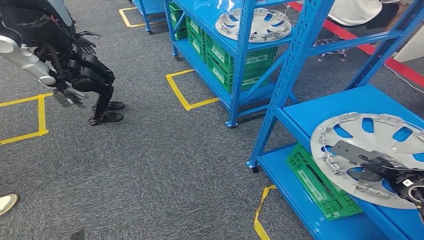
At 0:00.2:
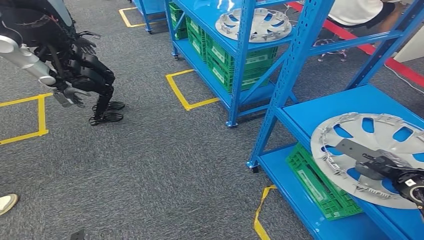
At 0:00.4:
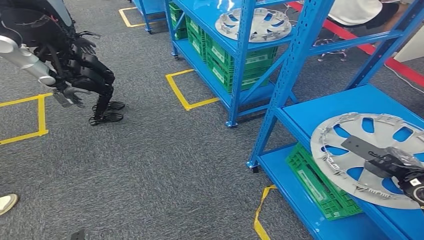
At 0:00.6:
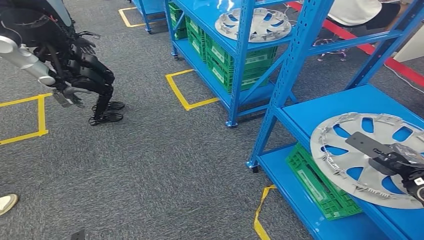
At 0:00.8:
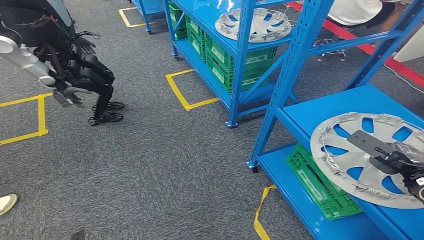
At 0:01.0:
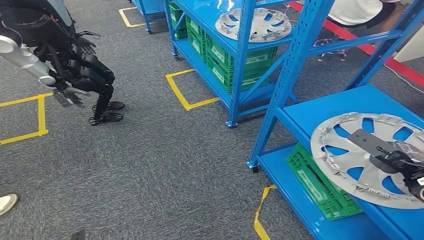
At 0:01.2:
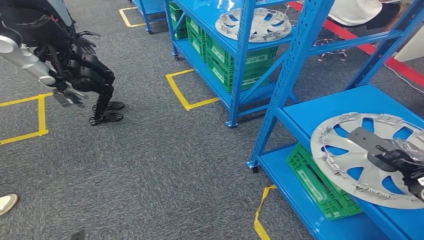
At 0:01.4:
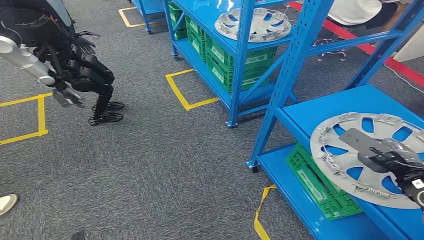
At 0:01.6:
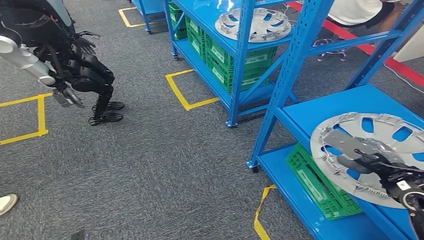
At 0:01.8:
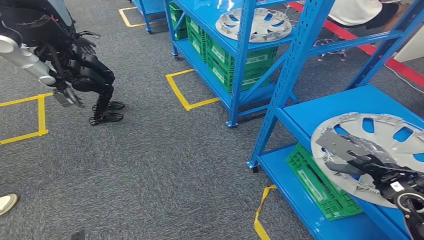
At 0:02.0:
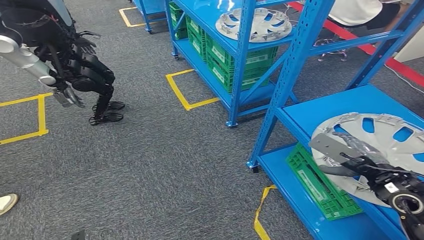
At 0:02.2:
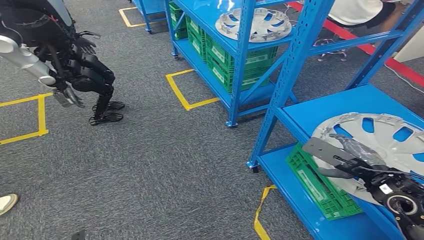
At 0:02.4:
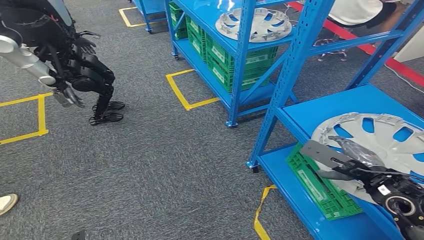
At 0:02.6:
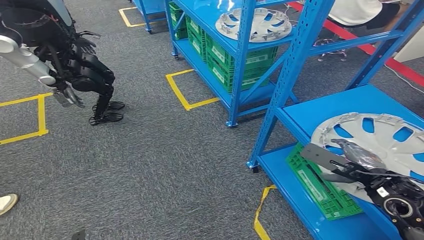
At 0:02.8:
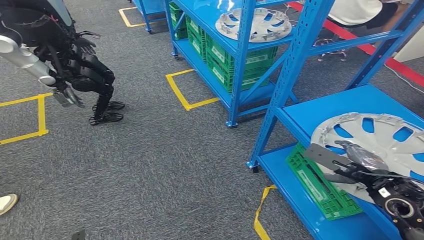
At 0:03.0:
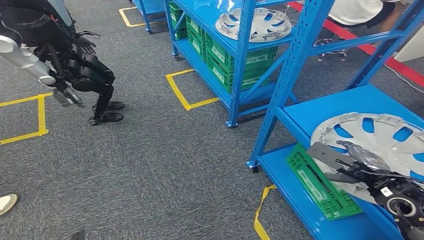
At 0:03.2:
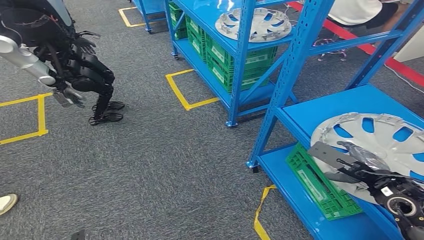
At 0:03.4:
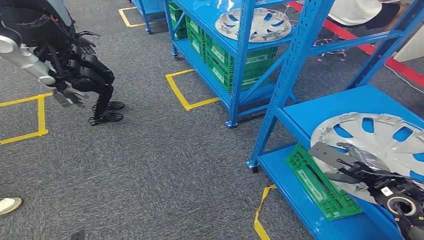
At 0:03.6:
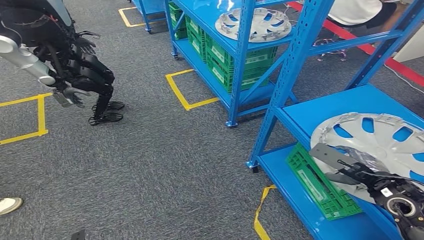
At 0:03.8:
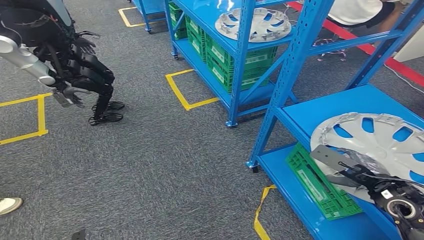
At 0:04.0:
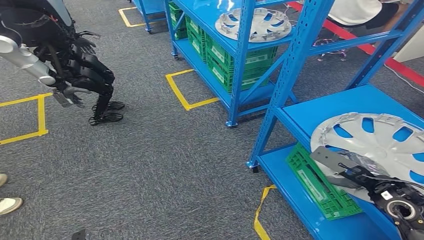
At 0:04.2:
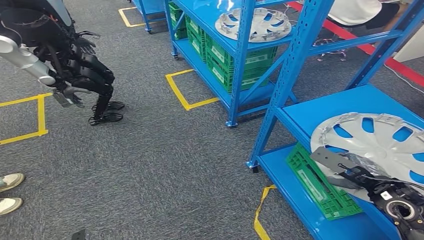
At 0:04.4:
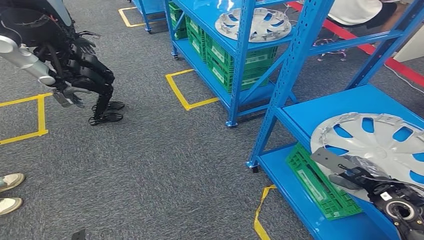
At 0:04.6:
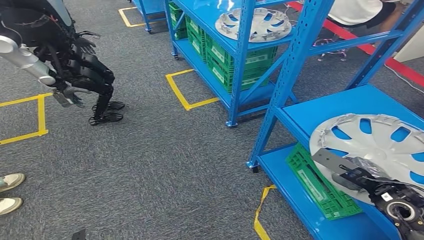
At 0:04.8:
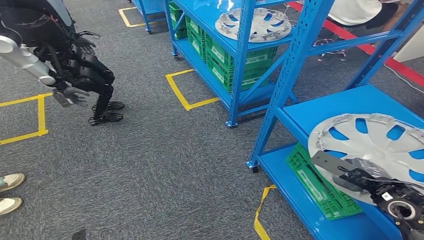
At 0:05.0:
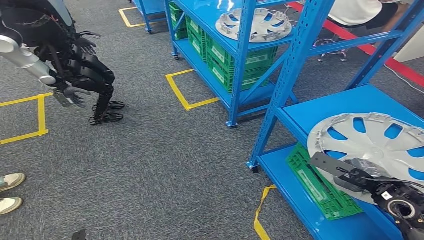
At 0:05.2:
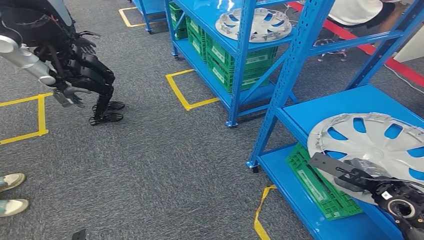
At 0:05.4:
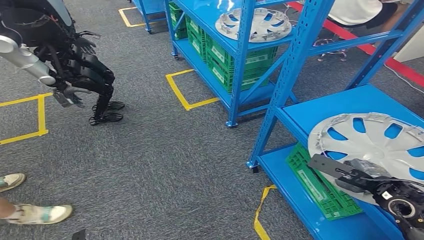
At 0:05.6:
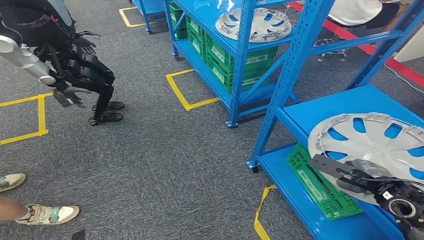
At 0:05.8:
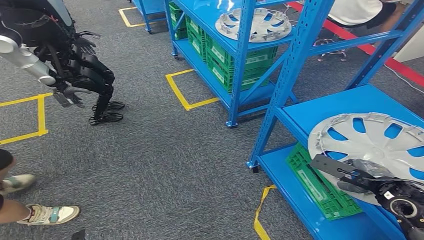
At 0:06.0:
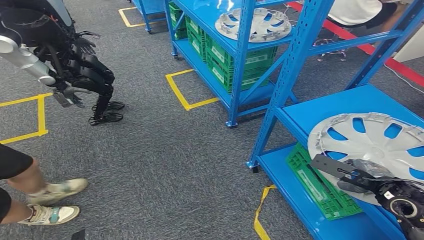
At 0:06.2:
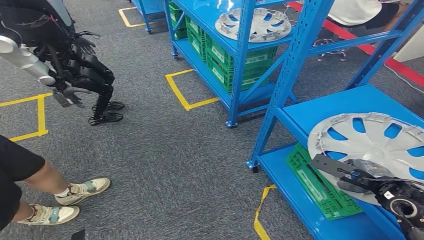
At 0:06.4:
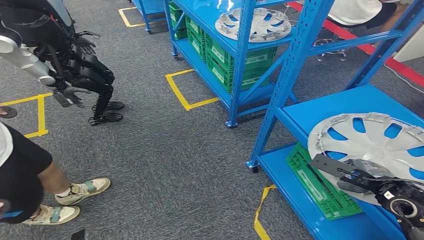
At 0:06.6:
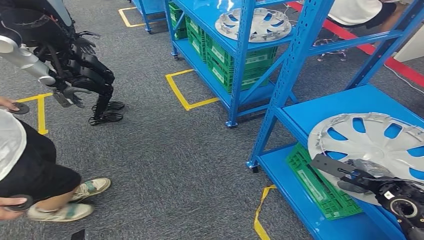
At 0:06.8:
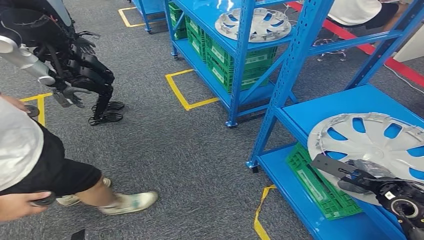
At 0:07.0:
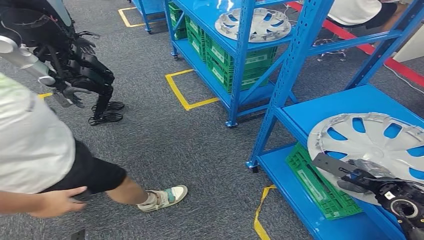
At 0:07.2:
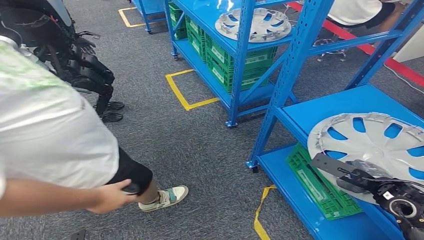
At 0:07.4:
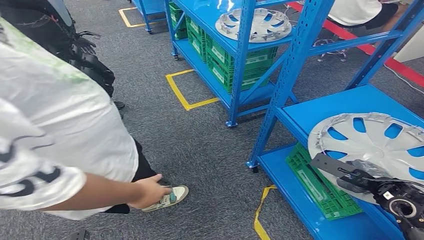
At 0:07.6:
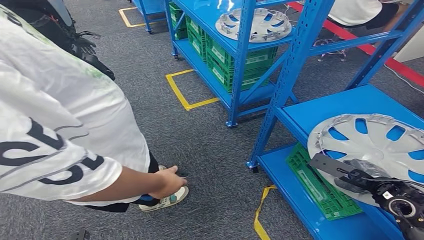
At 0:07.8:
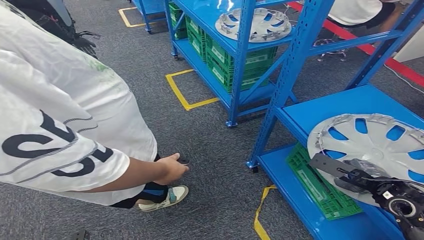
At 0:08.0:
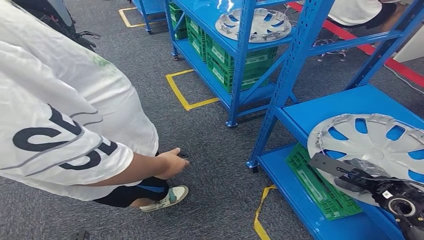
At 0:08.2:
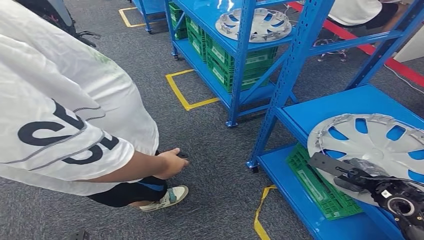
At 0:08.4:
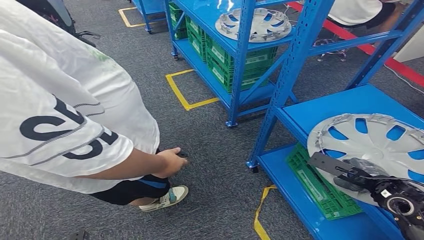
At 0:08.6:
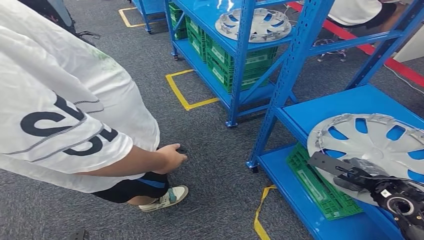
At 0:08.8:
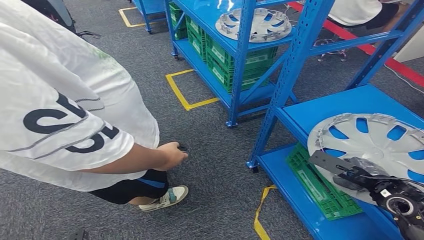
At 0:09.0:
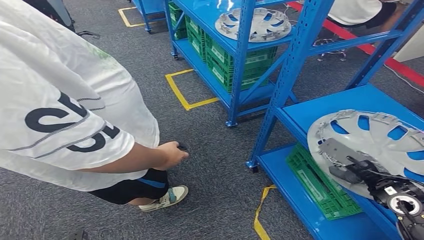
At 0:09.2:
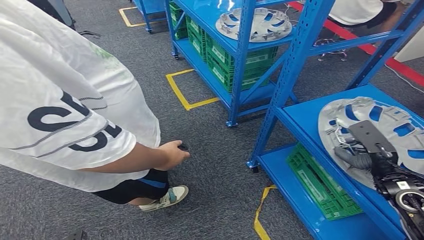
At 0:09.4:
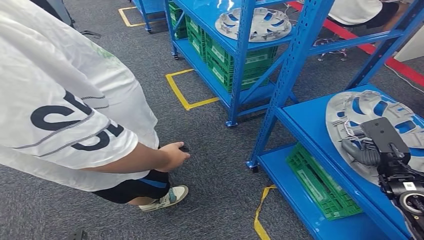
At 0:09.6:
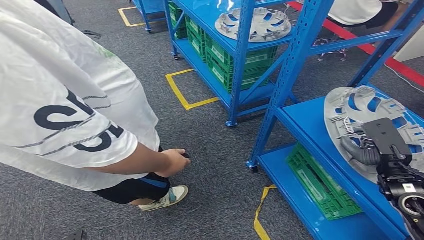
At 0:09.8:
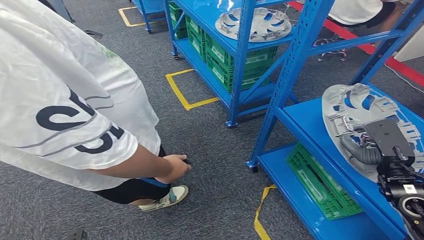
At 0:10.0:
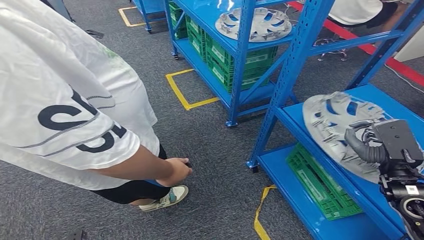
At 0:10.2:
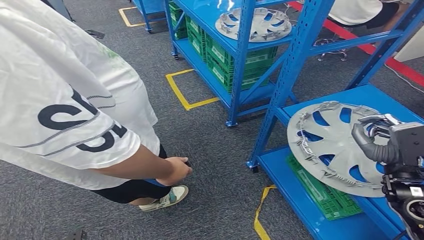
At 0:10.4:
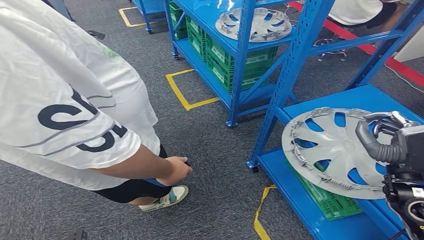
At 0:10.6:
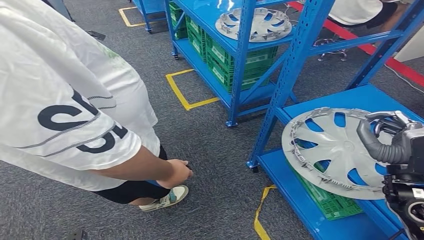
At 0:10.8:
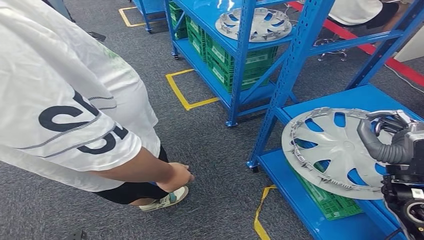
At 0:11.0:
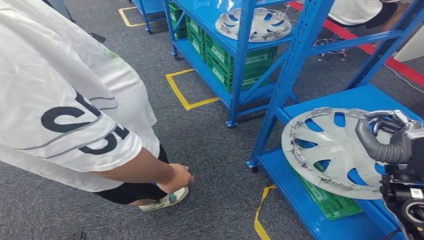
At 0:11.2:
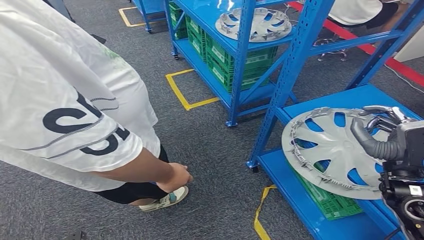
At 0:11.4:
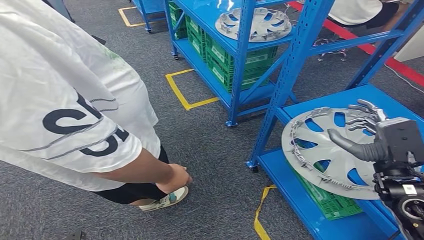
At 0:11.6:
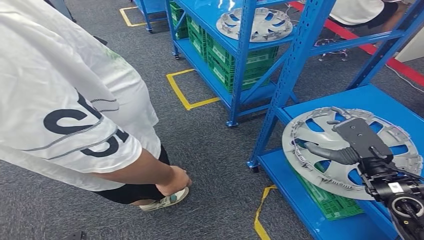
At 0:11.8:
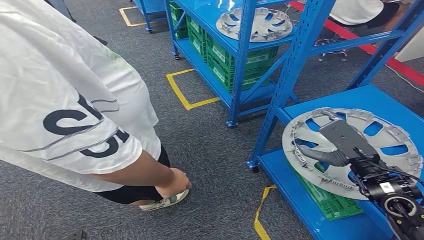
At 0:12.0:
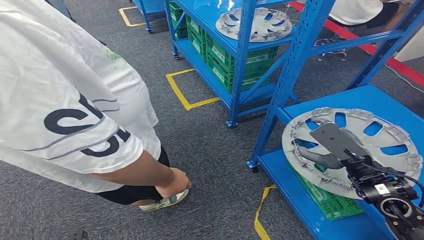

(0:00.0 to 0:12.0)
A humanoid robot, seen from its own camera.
0:00.0 - 0:01.6: The right hand changes place by roughly 5 cm.
0:01.6 - 0:04.4: The hands make only small movements.
0:04.4 - 0:06.0: The hands move only a little.

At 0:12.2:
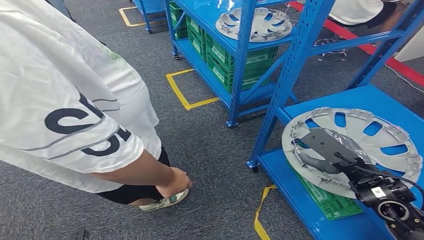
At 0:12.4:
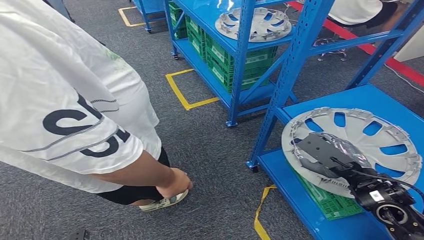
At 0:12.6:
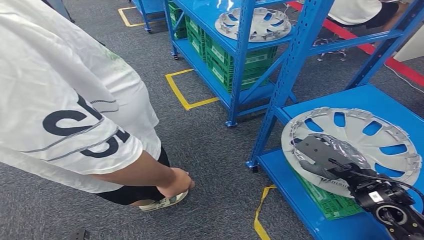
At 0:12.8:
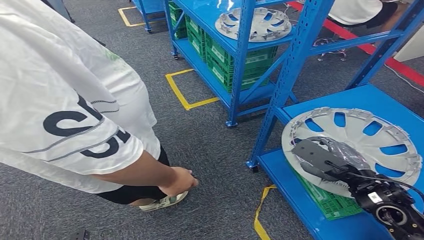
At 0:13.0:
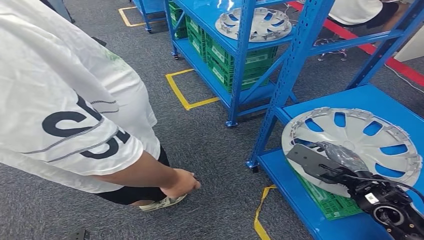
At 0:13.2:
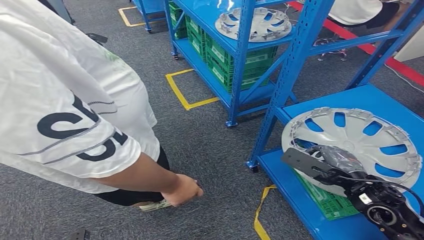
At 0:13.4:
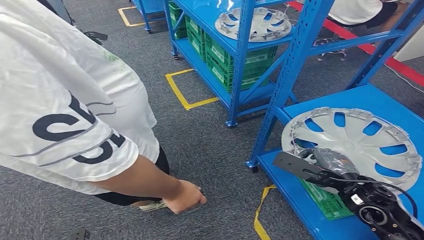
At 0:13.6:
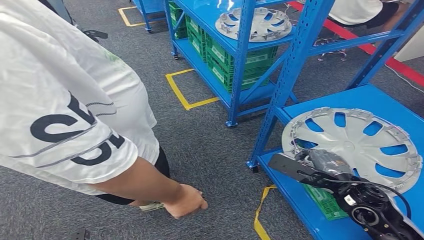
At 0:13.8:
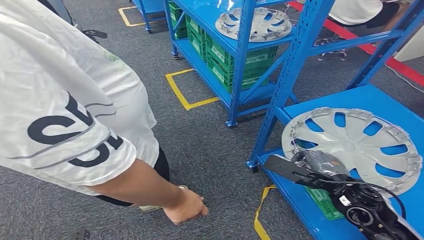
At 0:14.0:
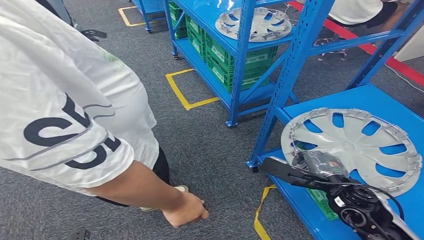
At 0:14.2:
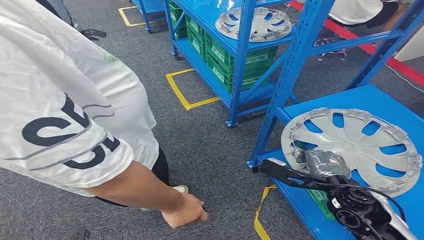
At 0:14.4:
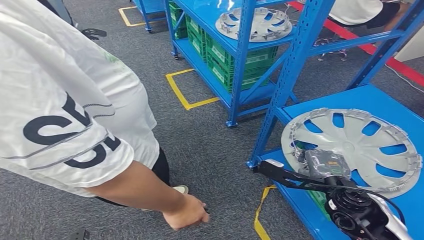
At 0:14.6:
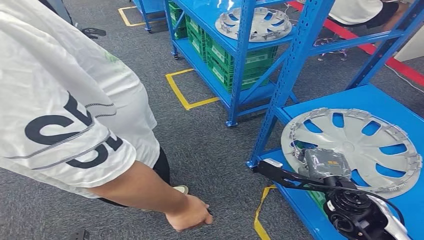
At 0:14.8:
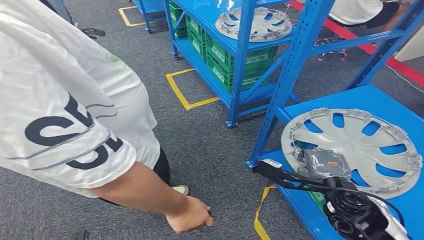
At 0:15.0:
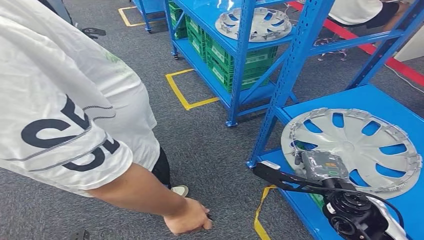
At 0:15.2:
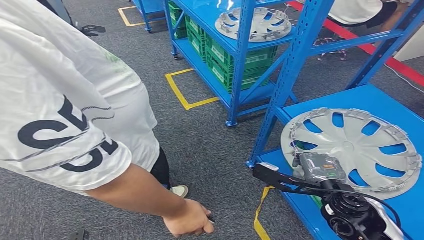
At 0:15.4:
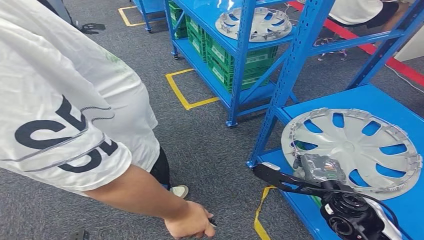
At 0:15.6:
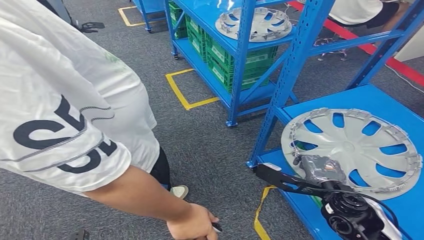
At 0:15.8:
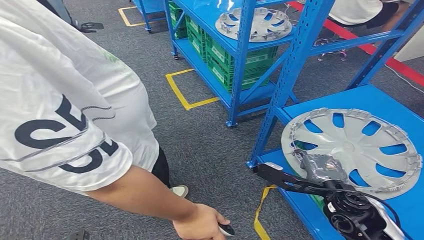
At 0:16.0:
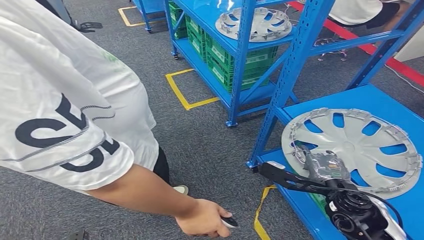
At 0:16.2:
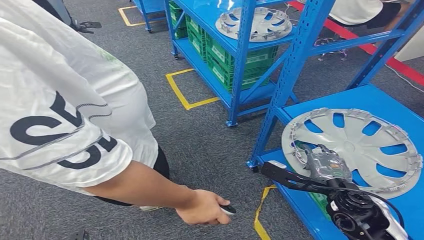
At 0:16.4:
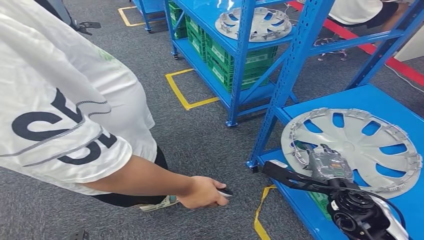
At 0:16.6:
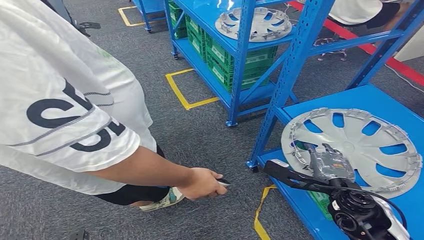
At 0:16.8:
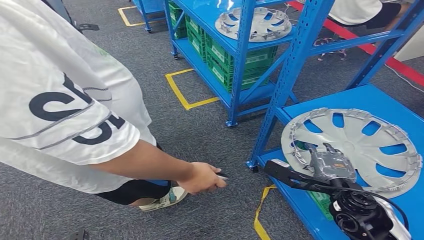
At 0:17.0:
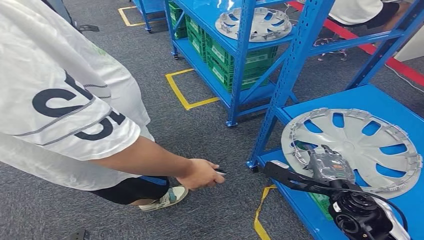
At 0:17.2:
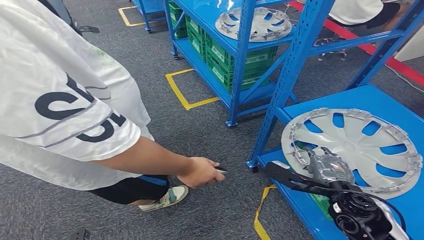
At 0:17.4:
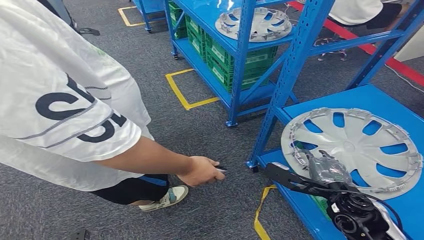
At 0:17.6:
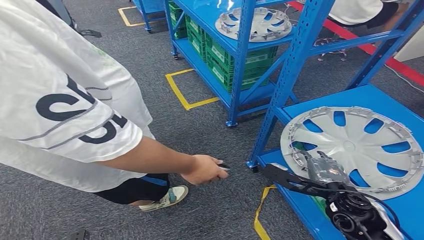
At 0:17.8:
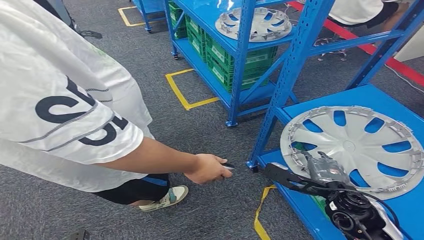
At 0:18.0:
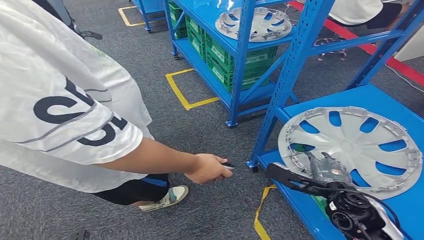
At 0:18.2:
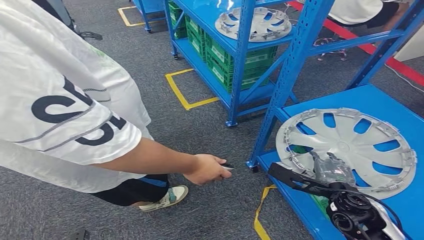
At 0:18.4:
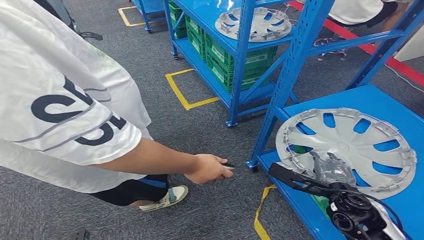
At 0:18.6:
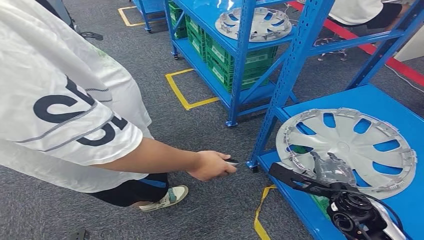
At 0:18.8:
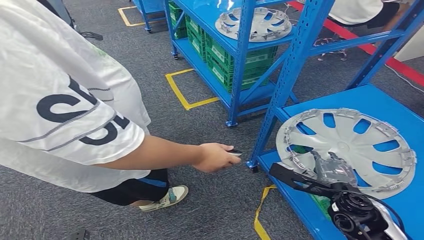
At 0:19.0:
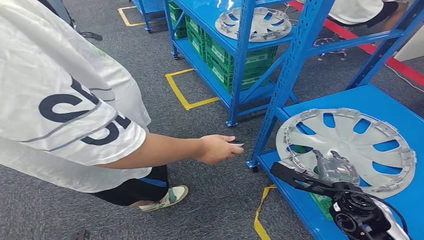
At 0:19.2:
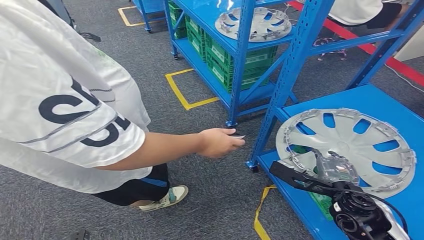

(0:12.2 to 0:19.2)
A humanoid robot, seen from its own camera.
0:15.0 - 0:16.4: There are only small adjustments of the hands.
0:17.8 - 0:19.2: Both hands stay about where they are.
